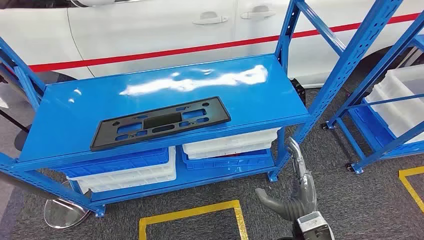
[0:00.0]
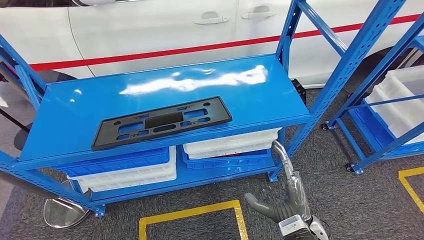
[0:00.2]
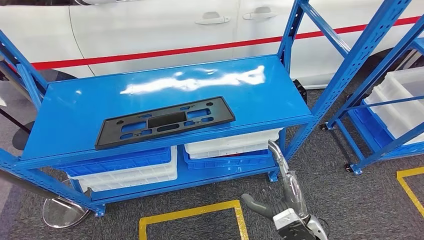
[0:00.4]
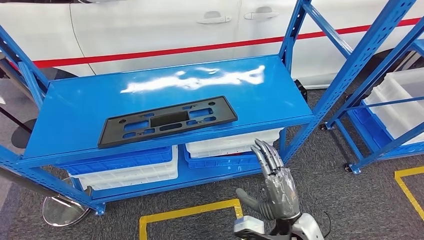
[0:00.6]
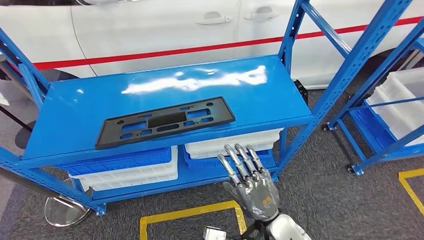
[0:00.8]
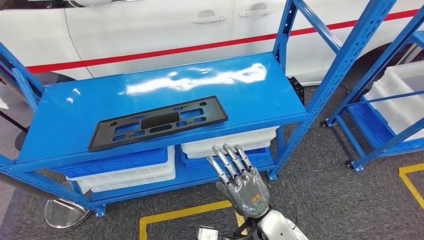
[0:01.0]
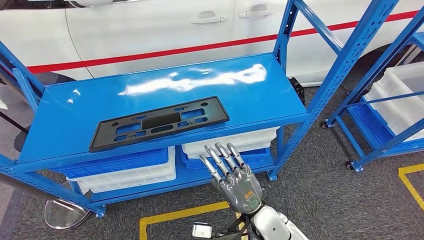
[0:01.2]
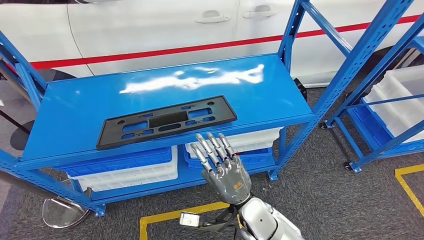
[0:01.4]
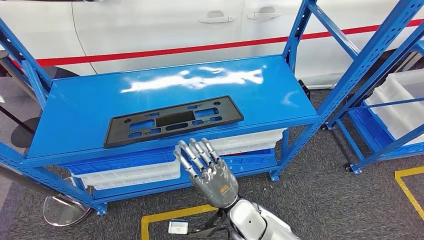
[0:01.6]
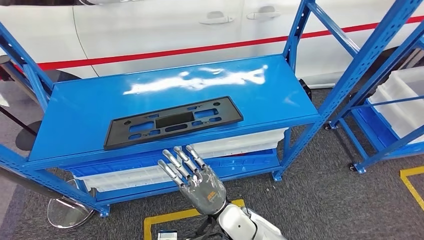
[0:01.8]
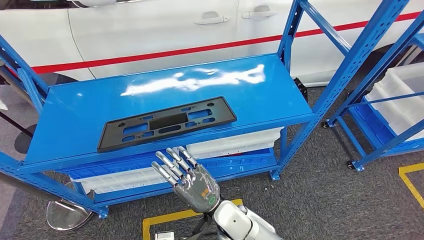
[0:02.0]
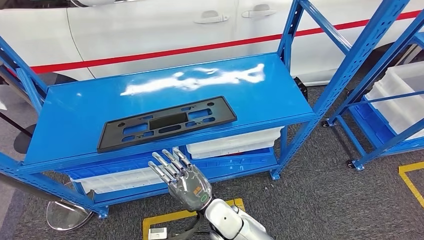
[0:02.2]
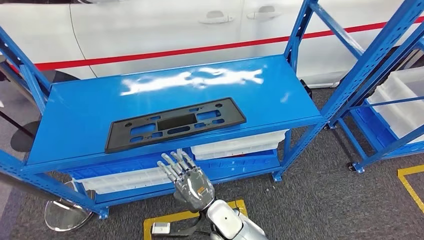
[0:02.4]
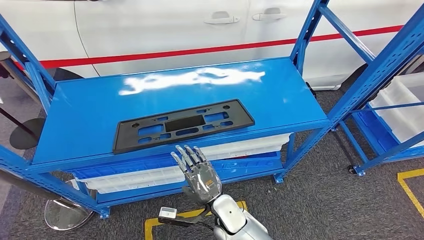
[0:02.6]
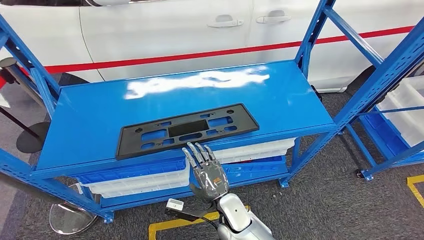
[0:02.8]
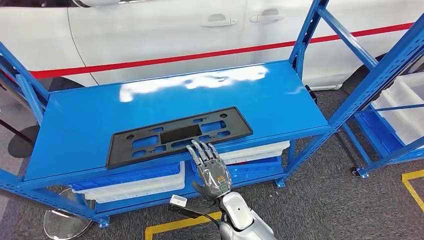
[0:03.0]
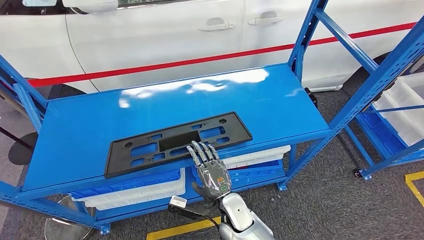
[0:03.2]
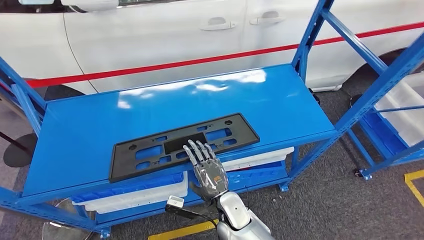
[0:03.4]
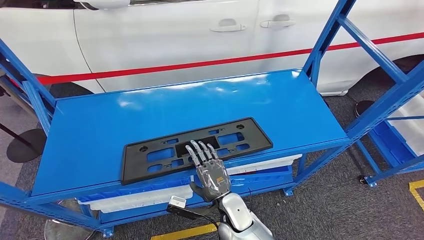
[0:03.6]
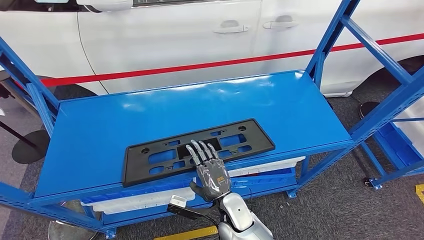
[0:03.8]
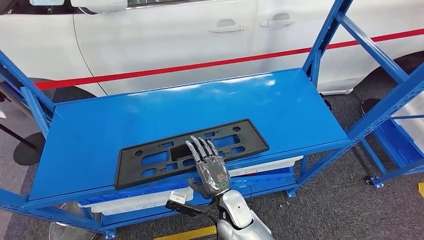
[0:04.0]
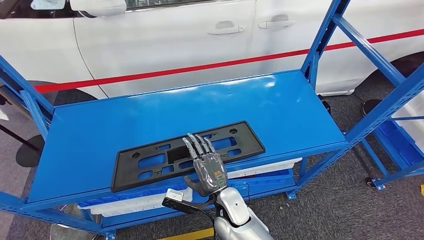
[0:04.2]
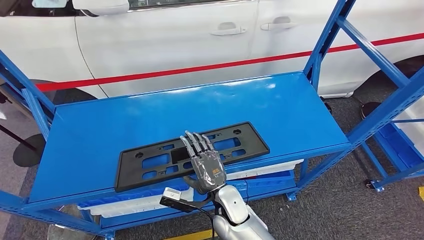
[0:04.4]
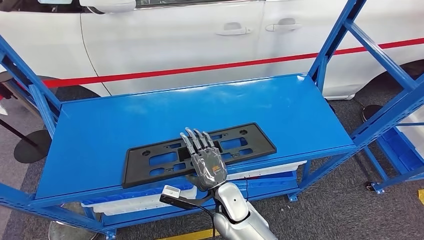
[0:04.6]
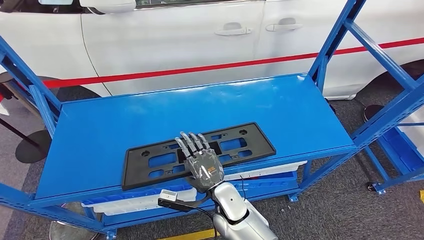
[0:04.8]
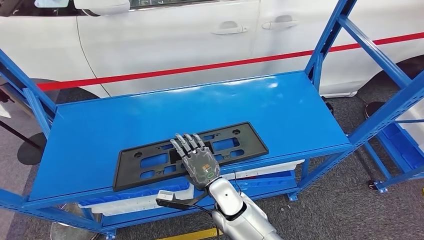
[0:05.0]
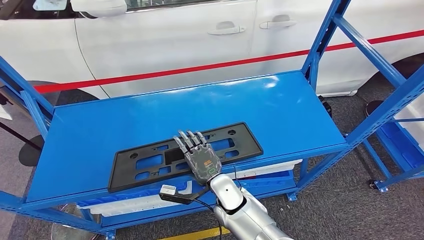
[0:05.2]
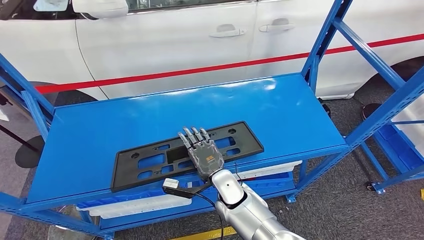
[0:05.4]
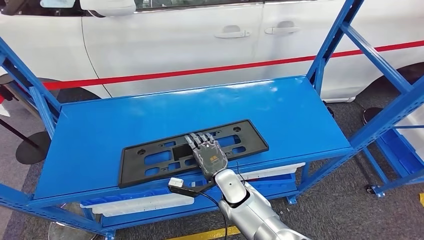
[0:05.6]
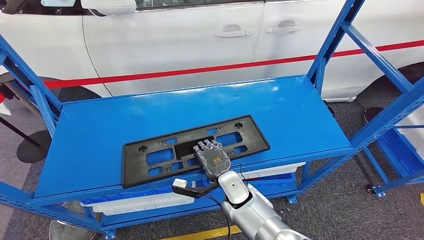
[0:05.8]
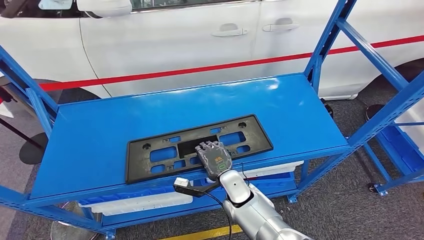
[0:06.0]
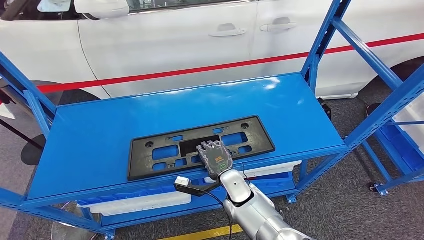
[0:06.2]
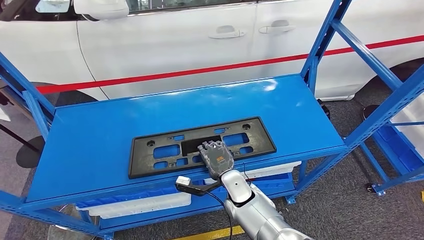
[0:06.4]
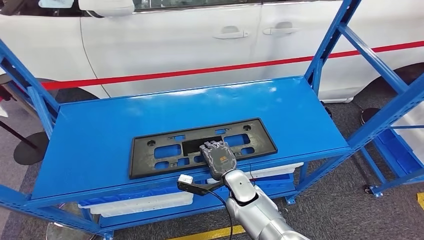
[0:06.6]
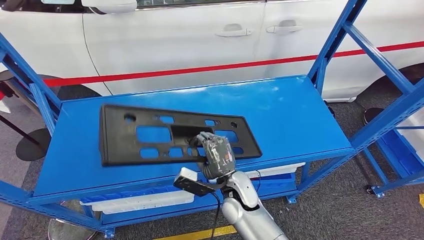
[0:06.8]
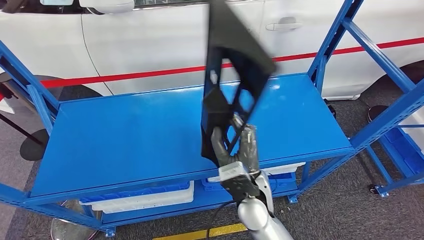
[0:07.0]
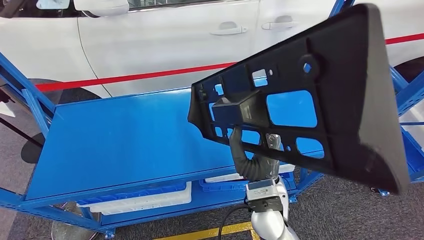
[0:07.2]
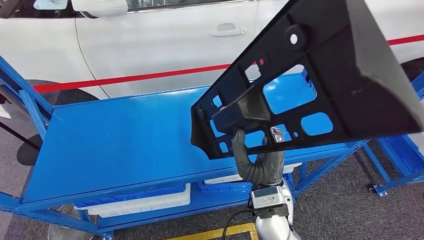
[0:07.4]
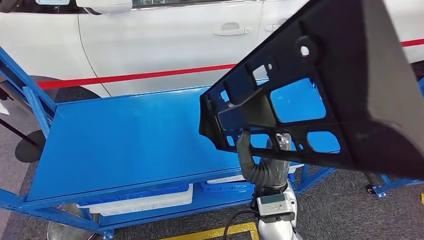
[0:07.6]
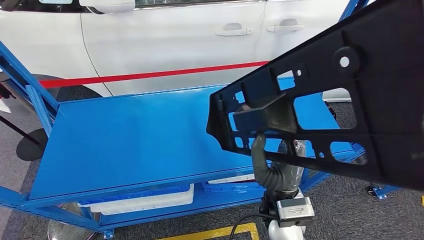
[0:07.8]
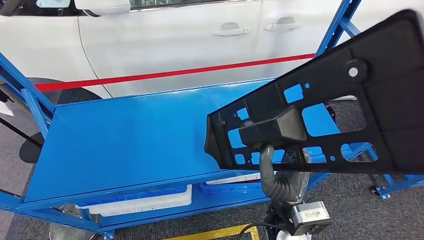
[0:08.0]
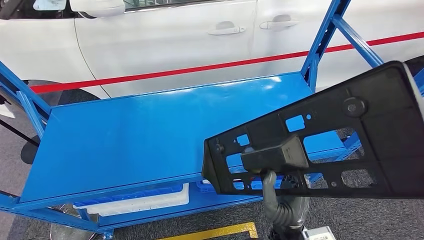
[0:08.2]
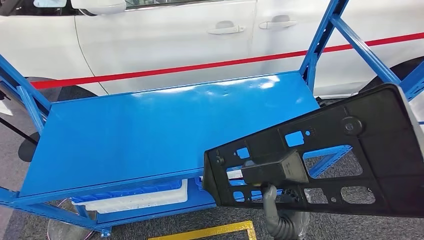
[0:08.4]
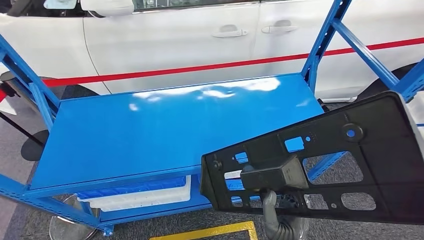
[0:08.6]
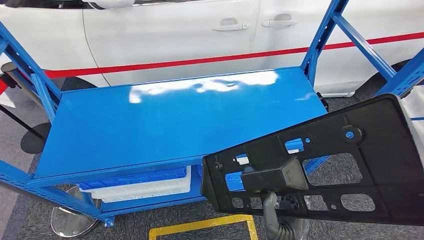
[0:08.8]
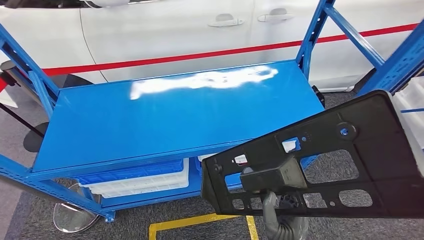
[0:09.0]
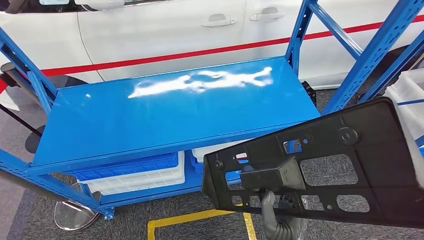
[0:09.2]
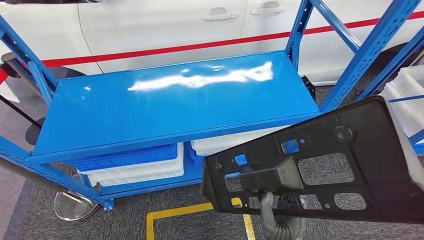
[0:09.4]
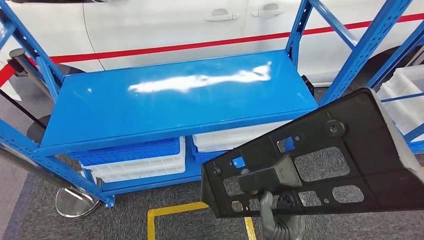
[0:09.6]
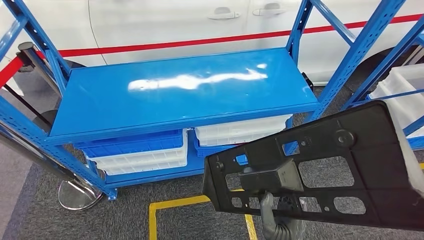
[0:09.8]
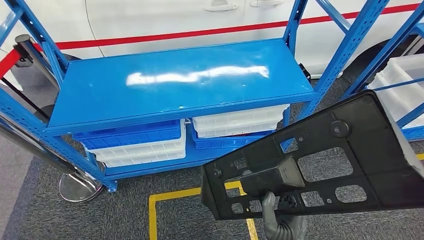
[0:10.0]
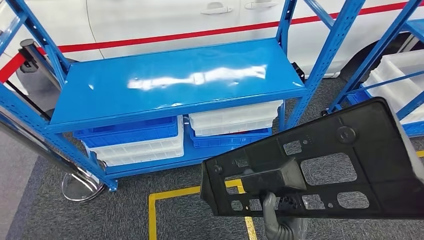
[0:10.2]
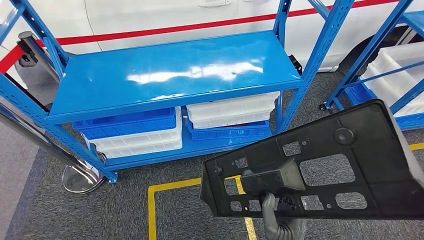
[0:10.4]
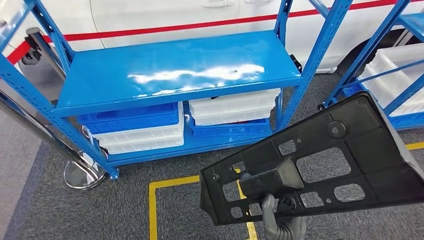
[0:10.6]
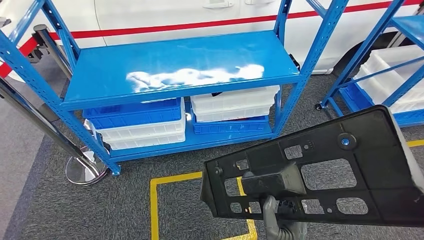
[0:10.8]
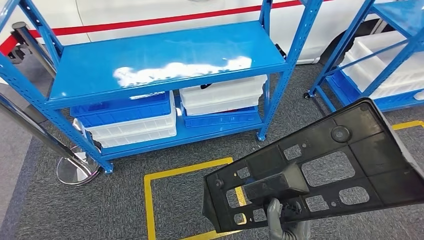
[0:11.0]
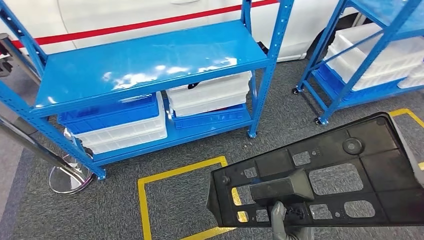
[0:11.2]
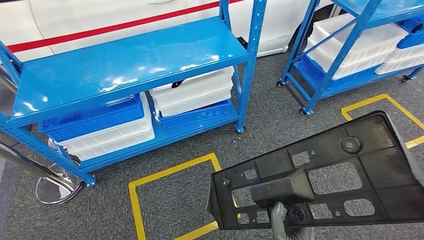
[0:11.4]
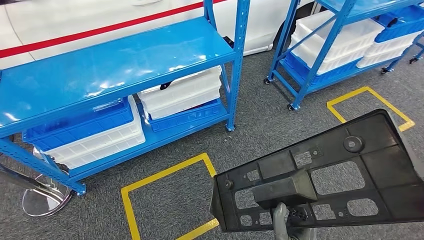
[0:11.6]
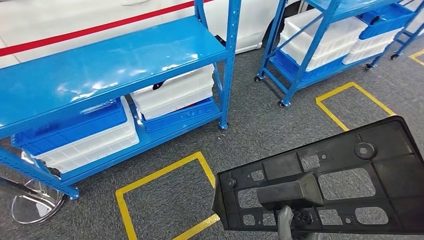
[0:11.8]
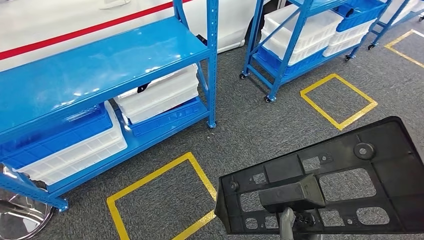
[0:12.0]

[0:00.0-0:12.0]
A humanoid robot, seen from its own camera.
Step, 0:00.0 to 0:08.2: Pick up the large material from the shelf.

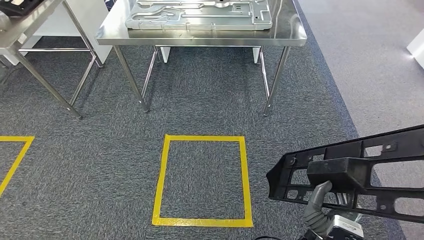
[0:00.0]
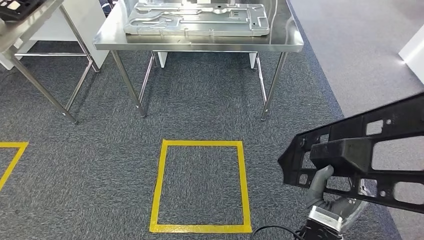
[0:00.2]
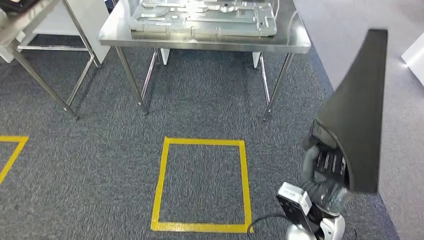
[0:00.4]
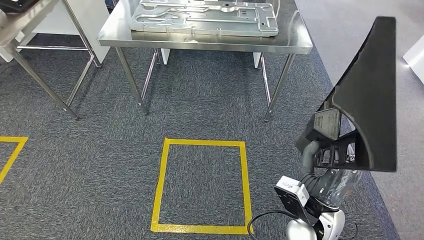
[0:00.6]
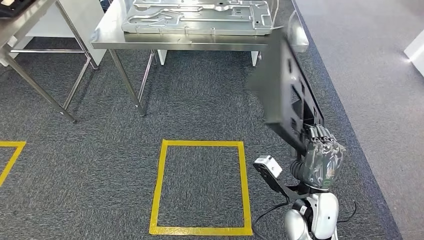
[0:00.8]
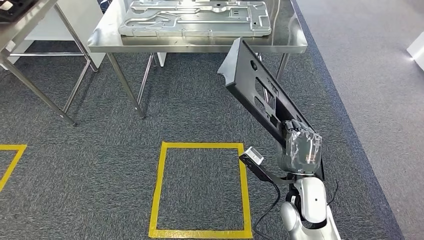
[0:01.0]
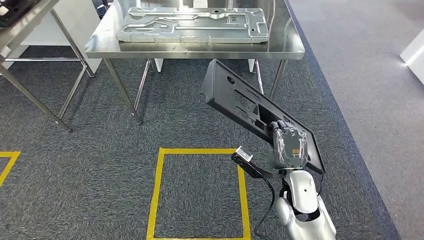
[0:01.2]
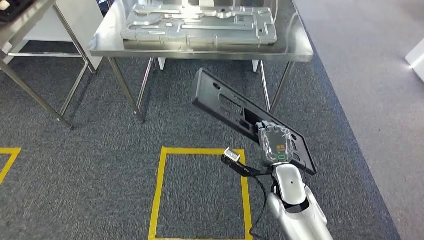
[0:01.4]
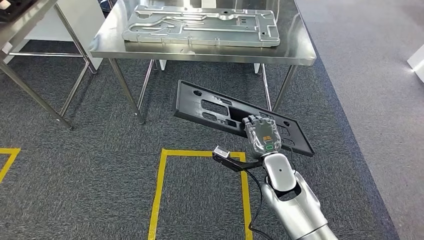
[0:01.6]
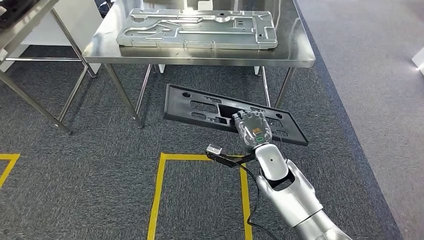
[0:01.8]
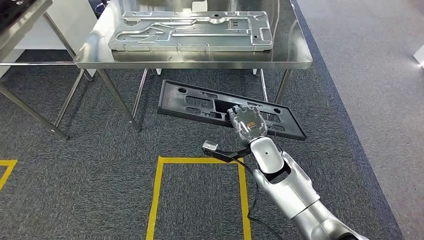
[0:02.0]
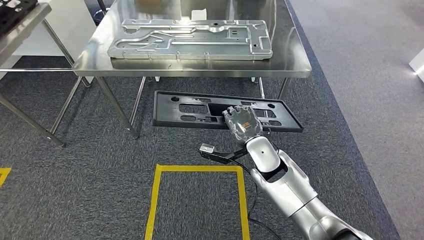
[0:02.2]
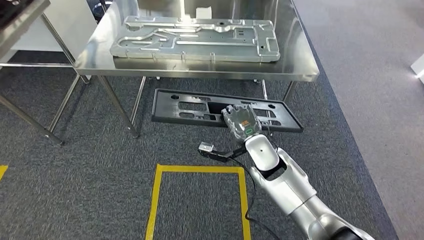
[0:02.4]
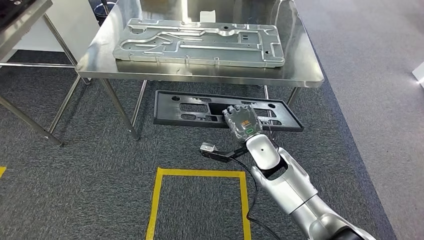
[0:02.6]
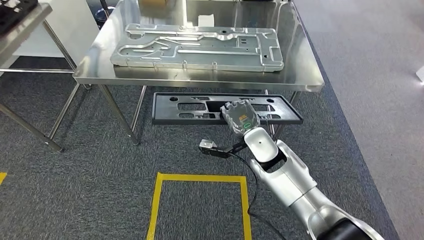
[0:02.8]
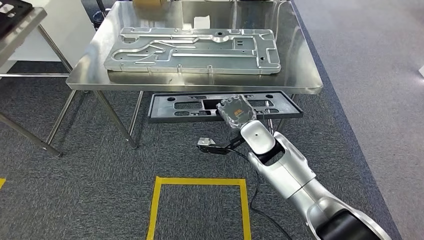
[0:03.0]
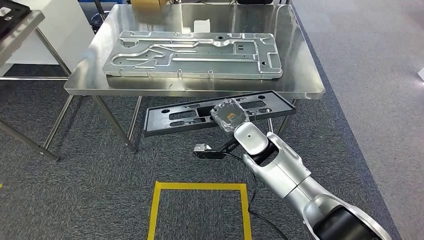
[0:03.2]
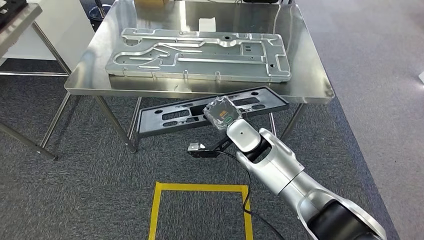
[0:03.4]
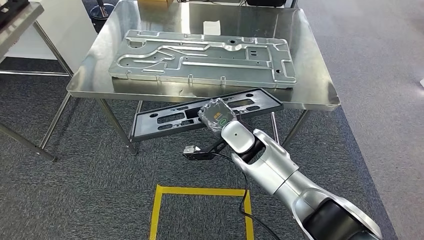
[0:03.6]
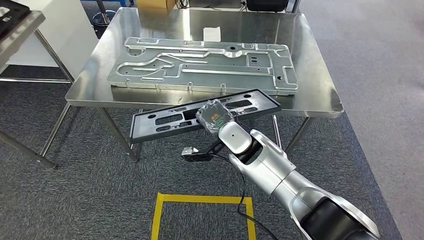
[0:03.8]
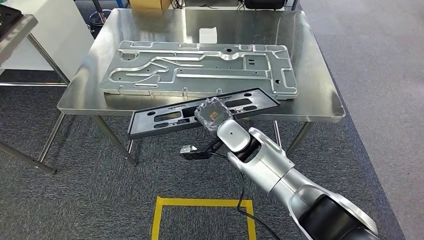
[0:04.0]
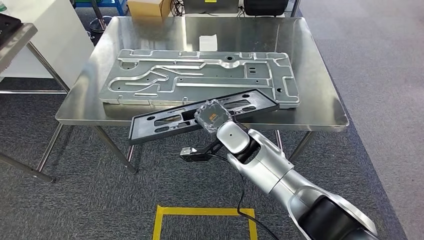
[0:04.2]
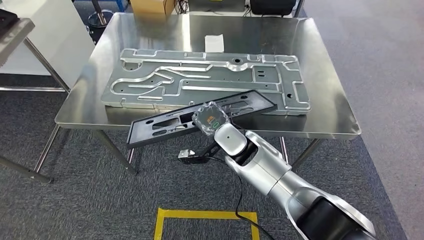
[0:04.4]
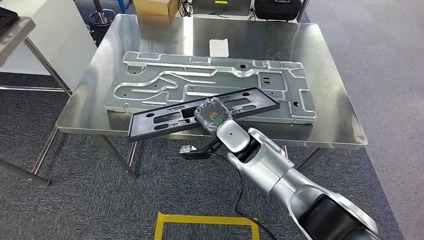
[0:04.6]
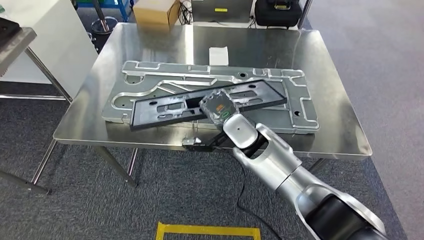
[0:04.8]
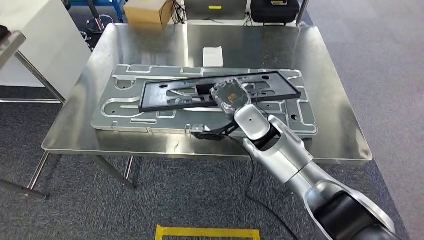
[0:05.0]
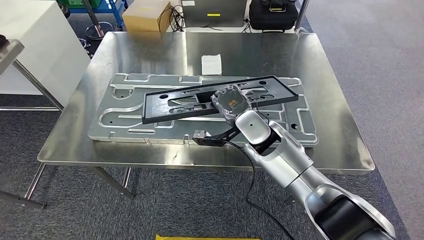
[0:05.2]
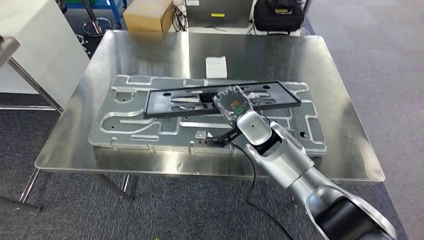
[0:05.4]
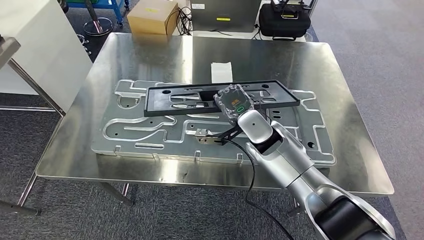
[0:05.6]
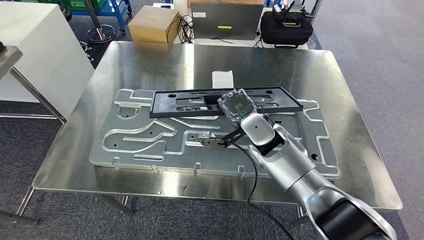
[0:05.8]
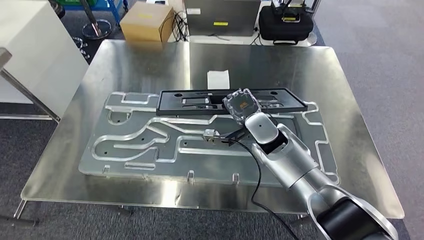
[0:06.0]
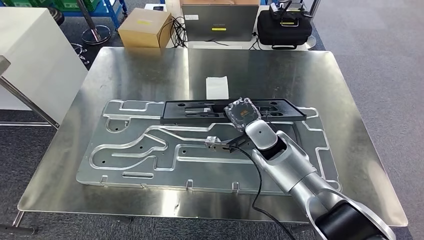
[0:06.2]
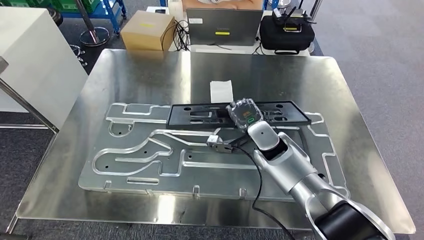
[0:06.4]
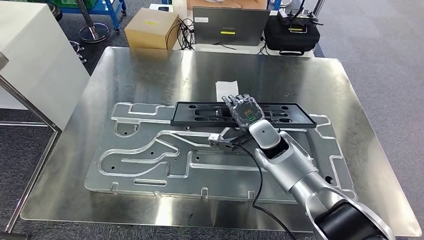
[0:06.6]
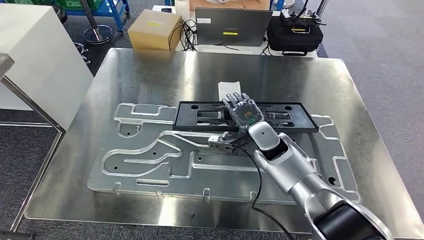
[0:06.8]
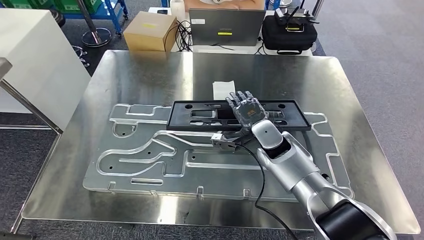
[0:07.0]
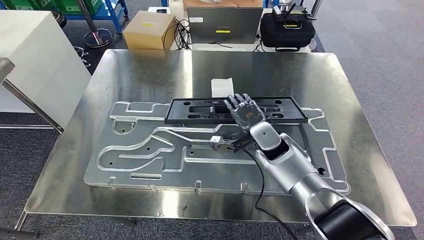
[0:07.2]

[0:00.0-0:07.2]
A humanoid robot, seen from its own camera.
Step, 0:00.0 to 0:04.2: Move the large material to the workbench.
